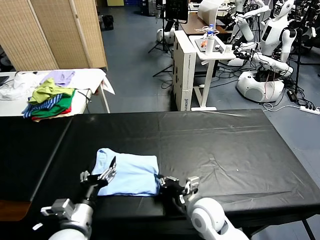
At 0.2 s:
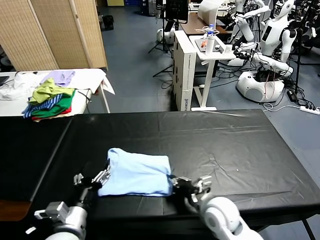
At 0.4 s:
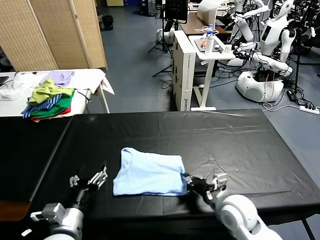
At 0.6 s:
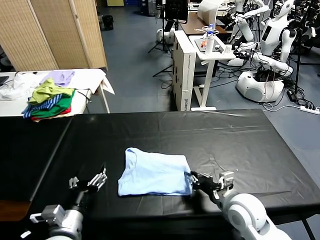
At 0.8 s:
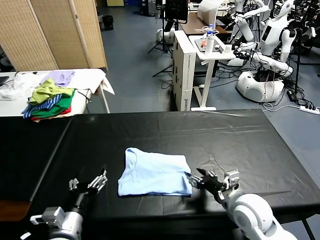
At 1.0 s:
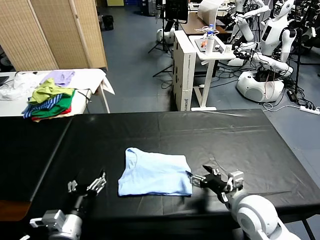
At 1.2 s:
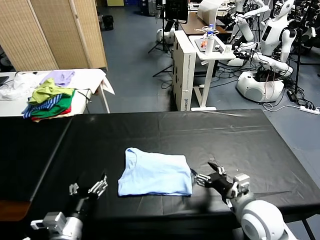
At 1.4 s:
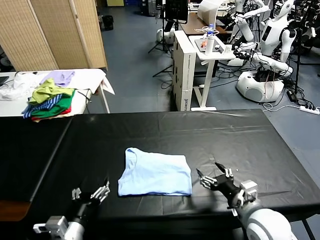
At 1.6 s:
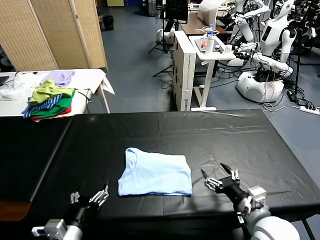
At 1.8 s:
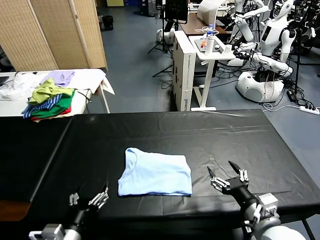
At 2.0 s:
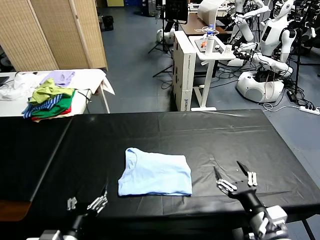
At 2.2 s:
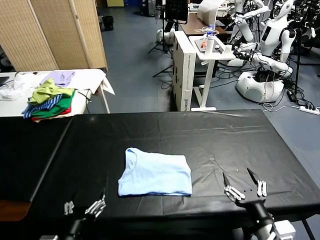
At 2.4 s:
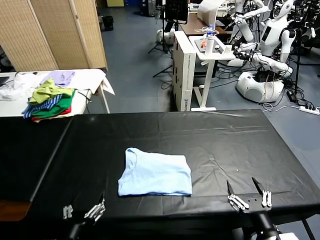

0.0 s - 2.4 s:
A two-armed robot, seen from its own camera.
Task of the whole recording: fold and organize the clothes.
0.0 s - 1.2 s: The right gripper heads to the right and upward, covering some 15 cm, and opens its fingers.
1.2 s - 2.4 s: The left gripper moves backward, approximately 5 cm; the right gripper shifts about 15 cm backward.

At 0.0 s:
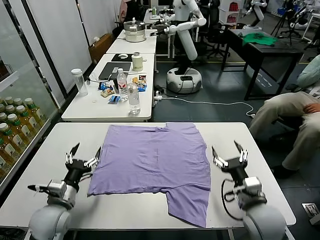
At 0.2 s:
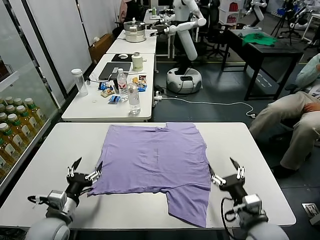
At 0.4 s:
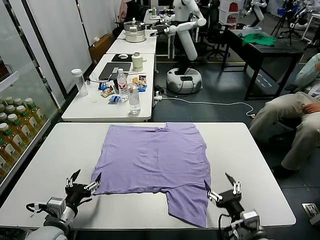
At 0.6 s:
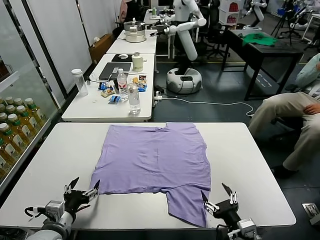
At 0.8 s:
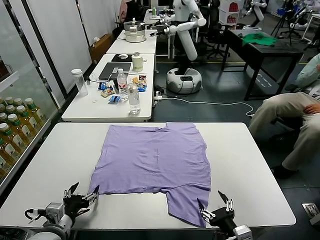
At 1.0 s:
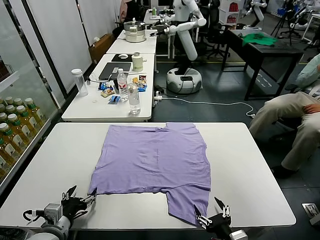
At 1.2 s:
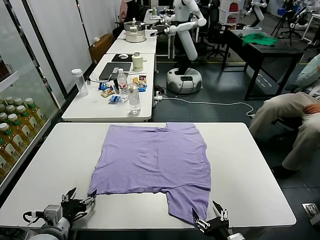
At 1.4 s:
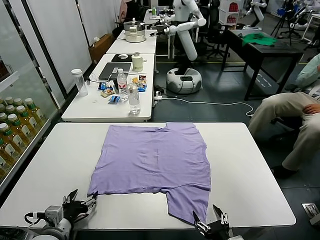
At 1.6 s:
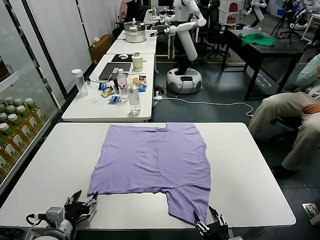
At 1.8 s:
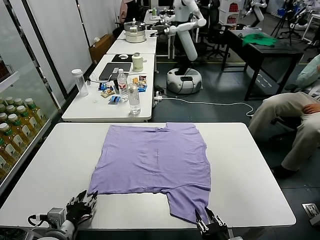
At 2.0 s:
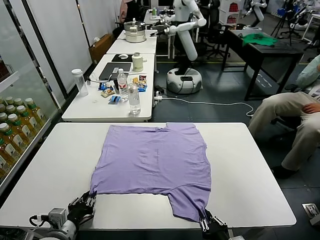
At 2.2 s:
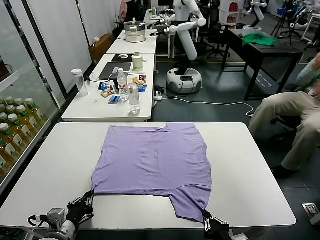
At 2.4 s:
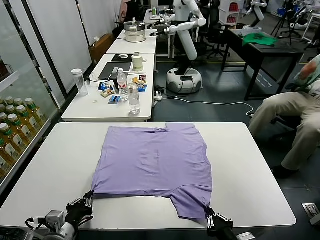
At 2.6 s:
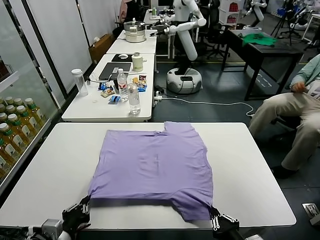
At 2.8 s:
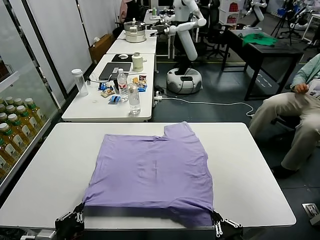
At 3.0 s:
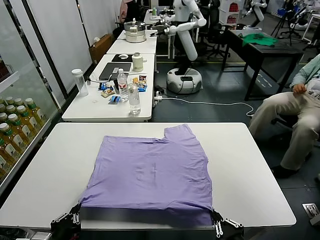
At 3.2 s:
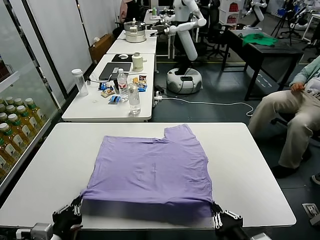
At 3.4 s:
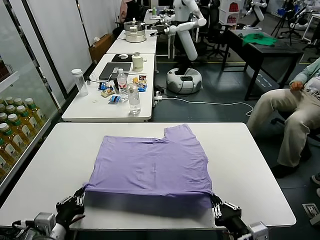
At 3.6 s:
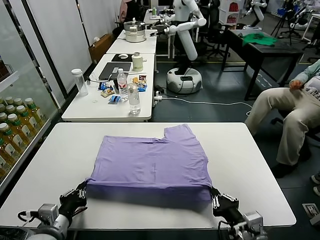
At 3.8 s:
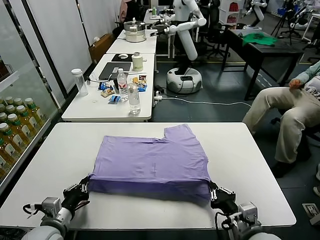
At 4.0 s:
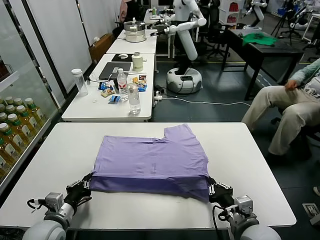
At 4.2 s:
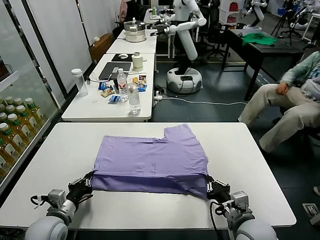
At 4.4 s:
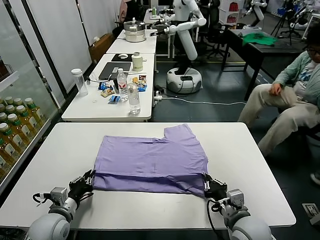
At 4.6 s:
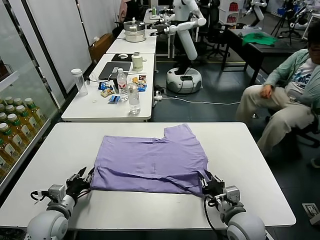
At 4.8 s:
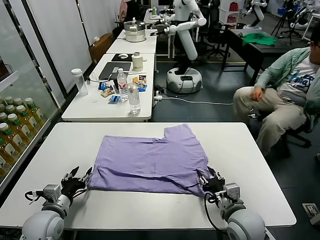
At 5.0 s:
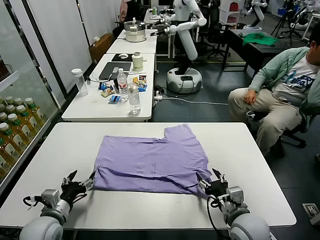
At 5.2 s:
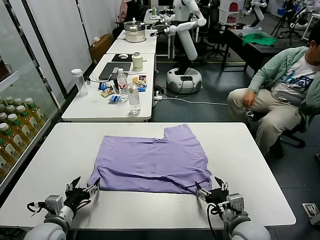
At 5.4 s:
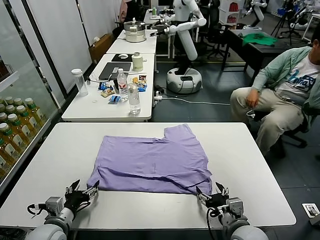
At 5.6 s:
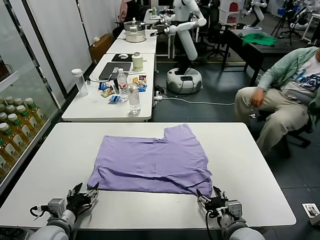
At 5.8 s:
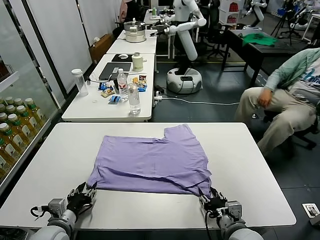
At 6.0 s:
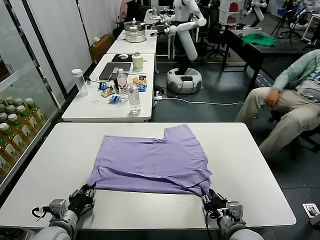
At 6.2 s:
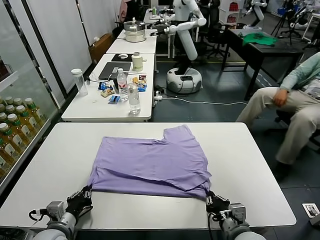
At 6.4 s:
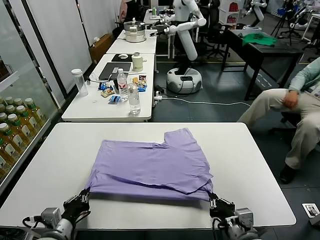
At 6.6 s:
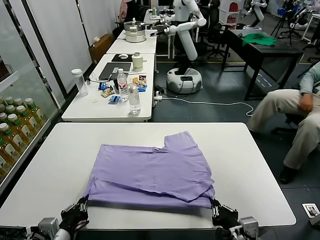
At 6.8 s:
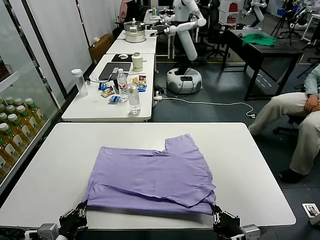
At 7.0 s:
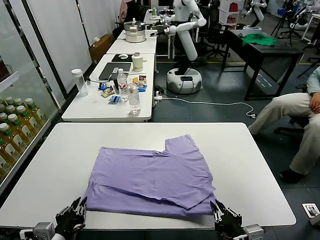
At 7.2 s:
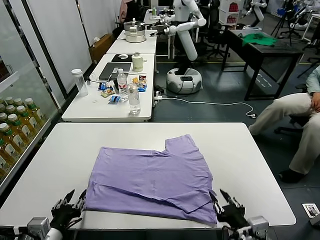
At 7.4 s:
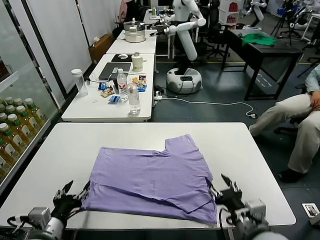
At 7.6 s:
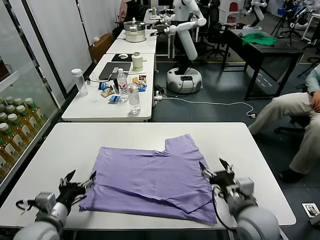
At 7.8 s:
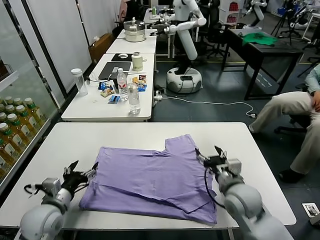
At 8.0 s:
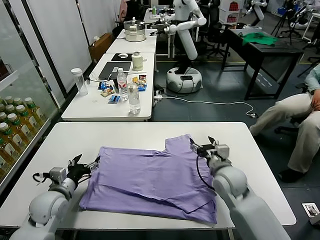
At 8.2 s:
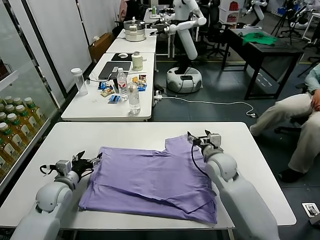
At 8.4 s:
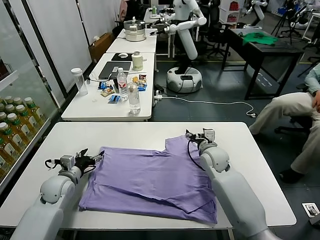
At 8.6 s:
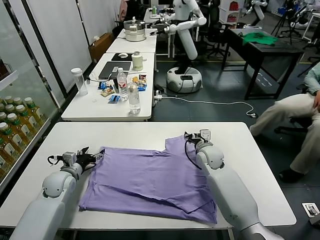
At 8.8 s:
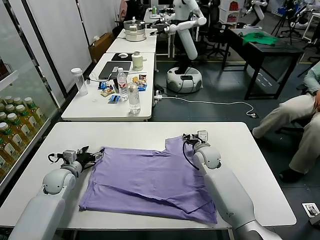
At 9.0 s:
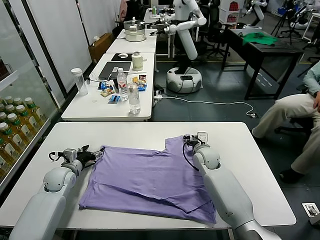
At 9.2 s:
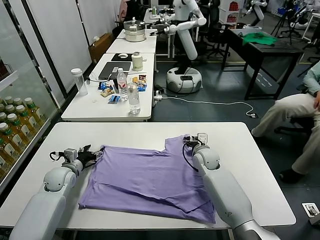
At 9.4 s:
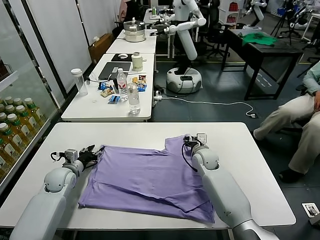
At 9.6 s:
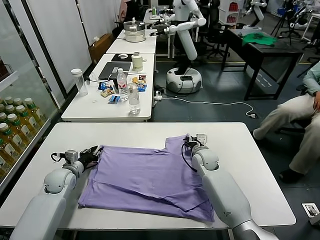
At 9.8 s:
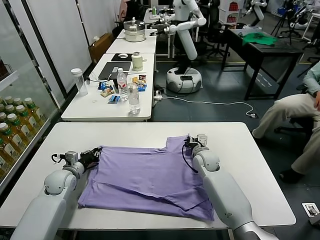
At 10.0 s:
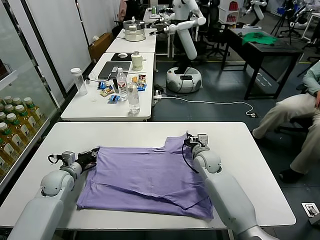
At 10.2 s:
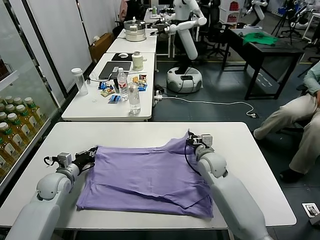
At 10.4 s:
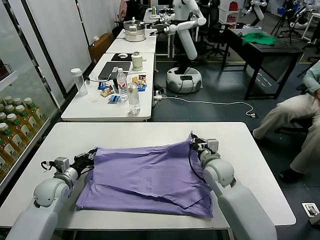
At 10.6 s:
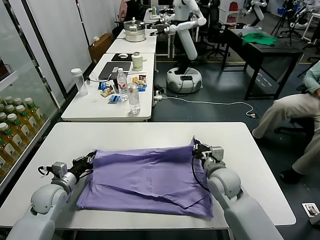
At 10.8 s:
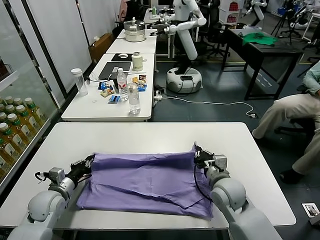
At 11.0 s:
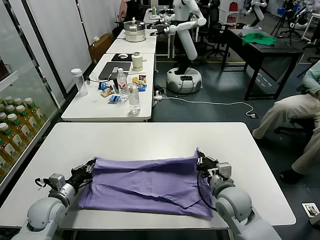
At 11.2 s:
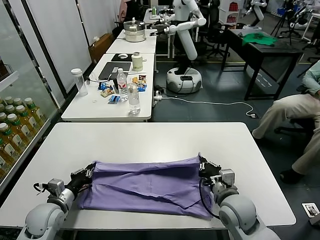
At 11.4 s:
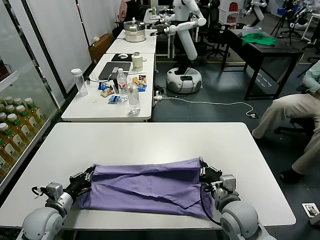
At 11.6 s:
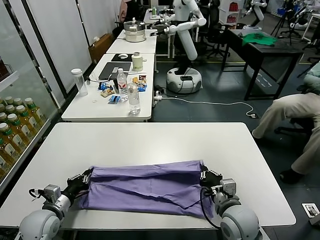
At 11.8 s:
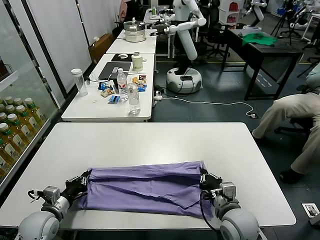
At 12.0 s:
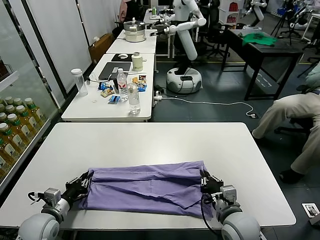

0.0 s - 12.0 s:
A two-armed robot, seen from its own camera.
Task of the whole recording: fold and organize the clothes.
Step, 0.0 s - 2.2 s: use both grippers simultaneously to clamp the lower edge of the clothing fabric.
Step, 2.4 s - 4.8 s: use both grippers to drag the lower edge of the fabric forward and fold it over the upper edge.
Step, 5.0 s - 7.4 s: Drag the clothes downward with both gripper.
Step, 7.6 s - 10.0 s: use both grippers simultaneously to clamp the upper edge of the clothing fabric.
1.6 s - 3.0 s: The left gripper is displaced backward by roughly 10 cm, and closes its fingers, while the right gripper goes about 10 cm upward, and closes its fingers.
3.0 s - 4.4 s: Both grippers move forward, roughly 15 cm.
4.4 s - 6.0 s: The right gripper opens, then closes again. Meanwhile the left gripper opens, then closes once more.
6.0 s - 7.6 s: The left gripper goes roughly 5 cm upward, moves approximately 10 cm backward and comes back, and opens its fingers; the right gripper moves forward and upward, approximately 10 cm, and opens its fingers.
7.6 s - 9.0 s: The two grippers go approximately 20 cm forward.
9.0 s - 10.4 s: The right gripper goes roughly 10 cm backward, and closes its fingers. Meanwhile the left gripper heads backward, covering some 5 cm, and closes its fingers.
10.4 s - 12.0 s: The grippers both shift backward by approximately 15 cm.

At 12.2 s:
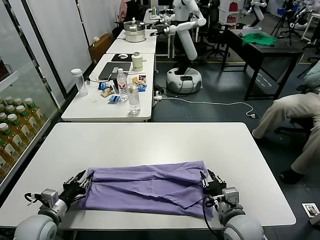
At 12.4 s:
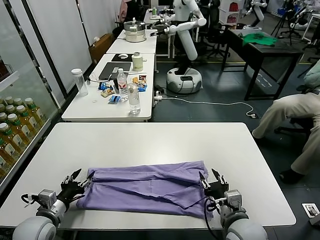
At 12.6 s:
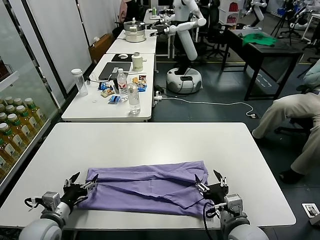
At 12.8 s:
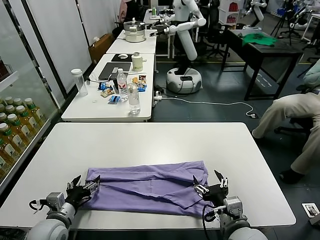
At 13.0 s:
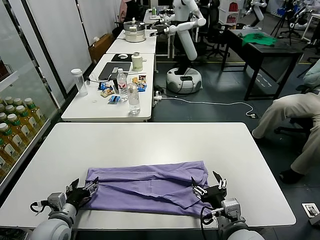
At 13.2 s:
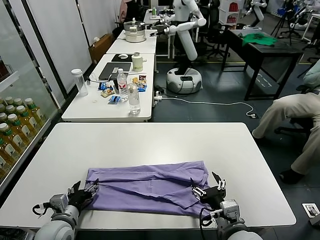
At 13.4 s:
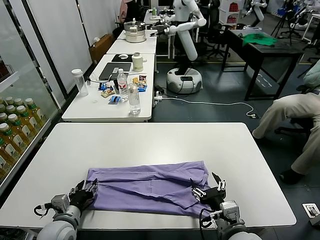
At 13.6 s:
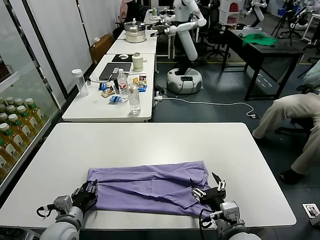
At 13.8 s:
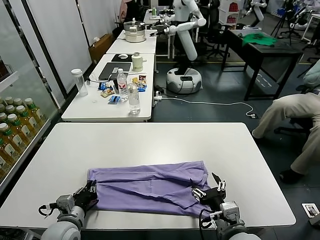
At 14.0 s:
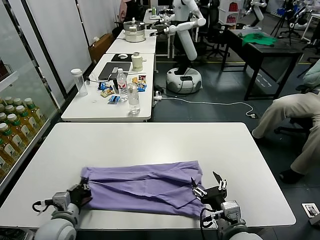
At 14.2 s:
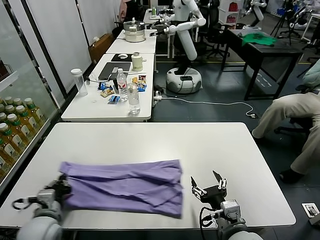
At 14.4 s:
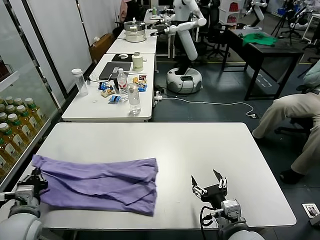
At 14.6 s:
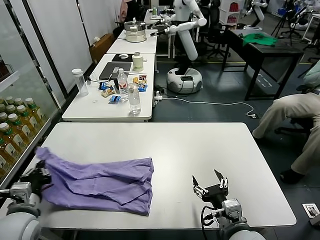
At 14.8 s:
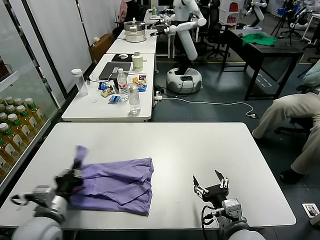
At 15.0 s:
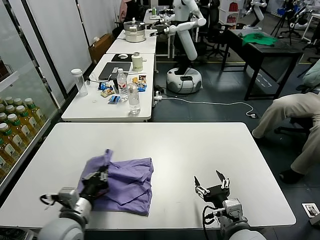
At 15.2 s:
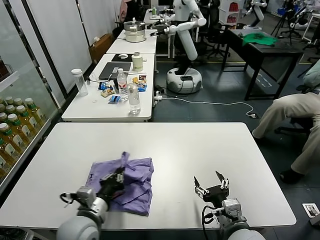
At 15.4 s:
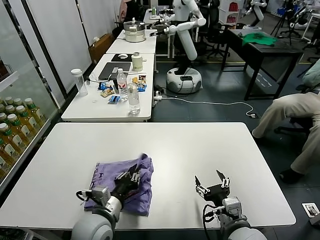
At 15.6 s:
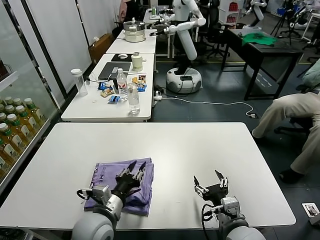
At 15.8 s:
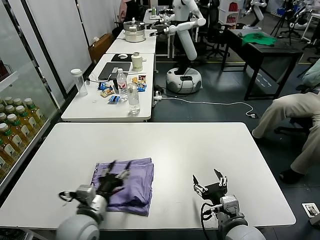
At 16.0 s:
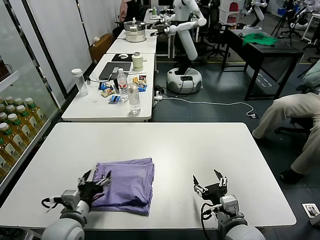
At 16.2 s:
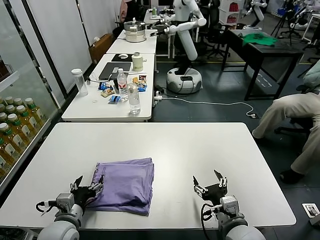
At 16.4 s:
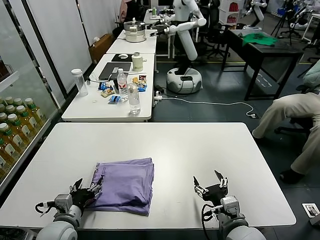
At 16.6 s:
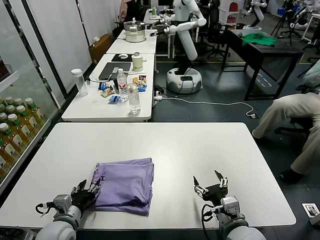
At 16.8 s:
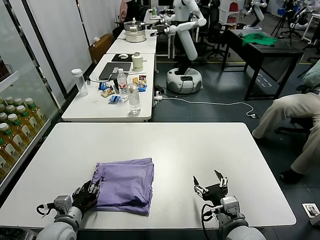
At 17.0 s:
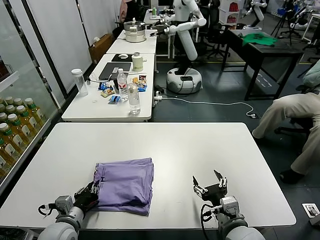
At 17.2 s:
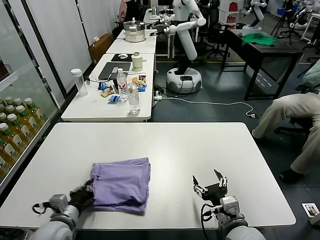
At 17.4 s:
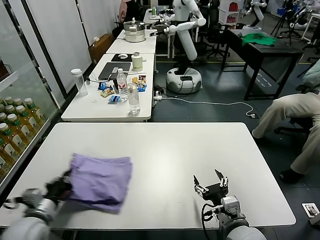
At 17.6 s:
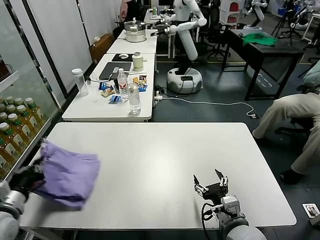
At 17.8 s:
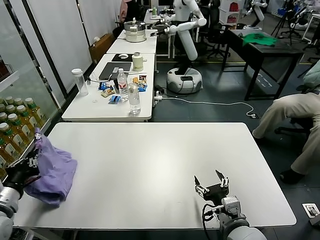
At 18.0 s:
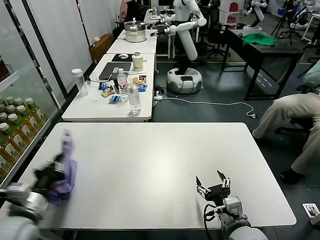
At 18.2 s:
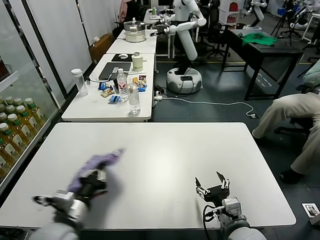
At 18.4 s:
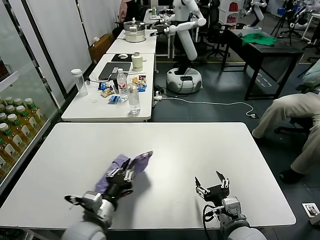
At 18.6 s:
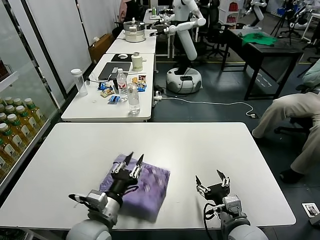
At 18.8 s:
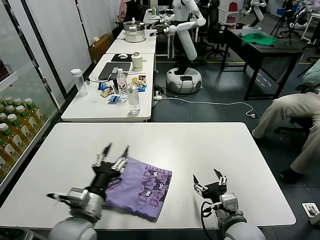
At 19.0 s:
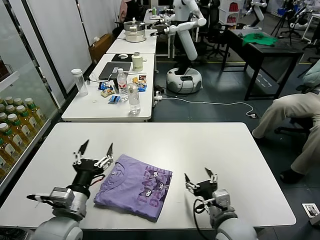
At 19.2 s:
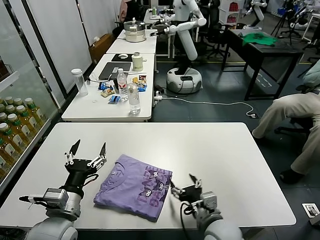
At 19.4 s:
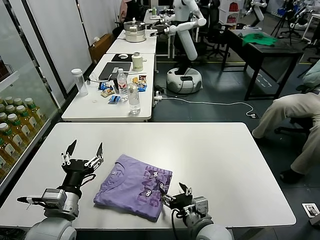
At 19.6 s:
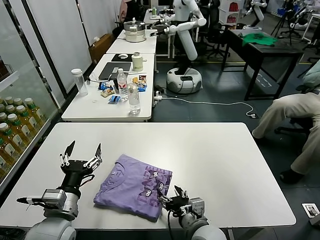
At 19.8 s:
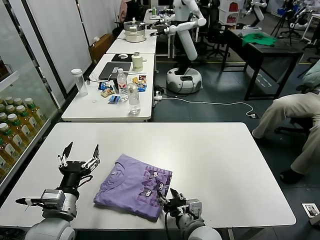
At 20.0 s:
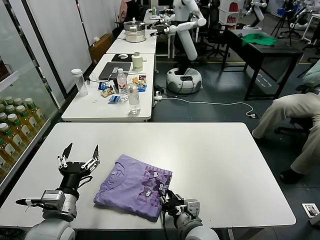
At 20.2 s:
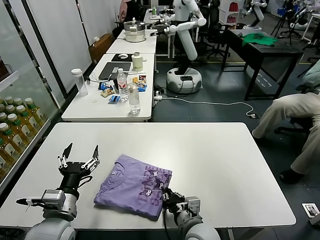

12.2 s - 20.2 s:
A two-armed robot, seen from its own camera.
Task of the whole recording: fold and organize the clothes.
Step, 12.6 s - 13.8 s: use the left gripper to clamp the left edge of the fabric.
Step, 14.0 s - 15.4 s: use the left gripper to drag the left edge of the fabric to the left and folds it over the right edge.
Step, 15.8 s - 18.8 s: Flip the folded clothes over with left gripper.
12.2 s - 13.8 s: The right gripper shifts approximately 5 cm backward, and opens up, while the left gripper shifts about 10 cm to the right, and opens and closes again.
13.8 s - 15.4 s: The left gripper shifts roughly 10 cm to the right and upward.
15.4 s - 17.0 s: The left gripper shifts about 15 cm to the left and downward, and opens, then closes again.
17.0 s - 18.6 s: The left gripper heads to the right and upward, covering about 15 cm.
18.6 s - 20.2 s: The grippers both shift to the left by roughly 10 cm. The right gripper closes up; the left gripper opens up.
